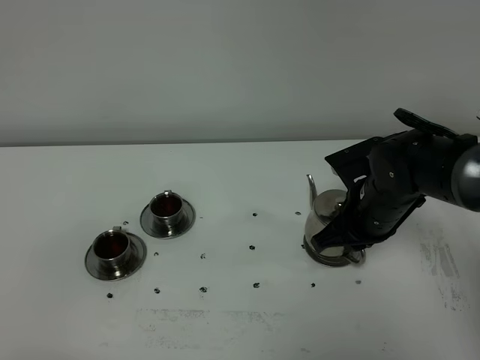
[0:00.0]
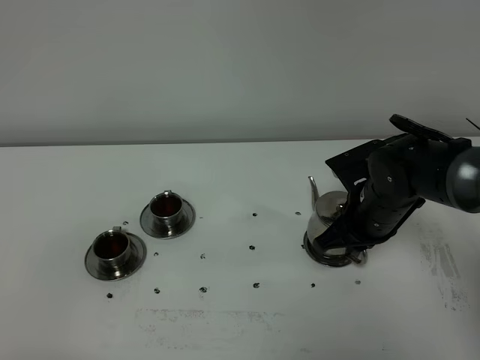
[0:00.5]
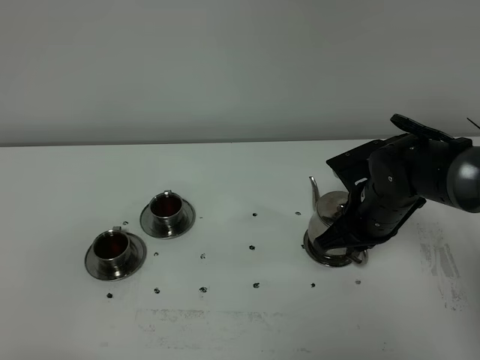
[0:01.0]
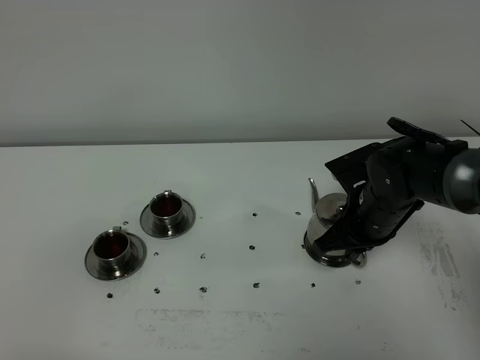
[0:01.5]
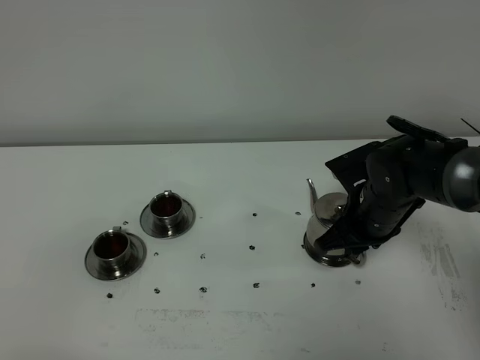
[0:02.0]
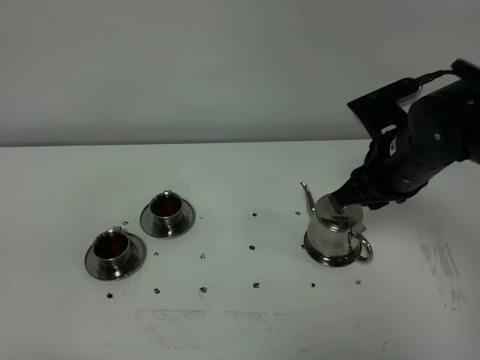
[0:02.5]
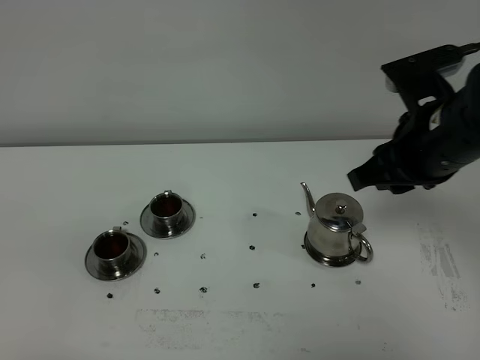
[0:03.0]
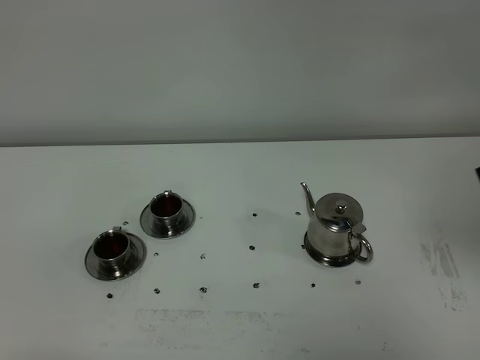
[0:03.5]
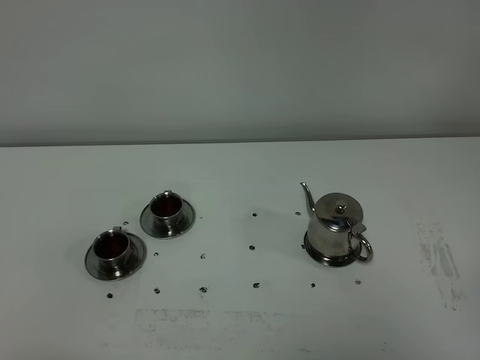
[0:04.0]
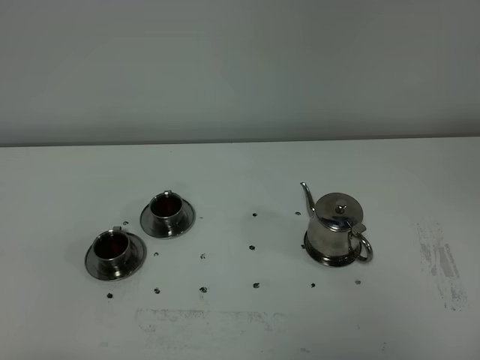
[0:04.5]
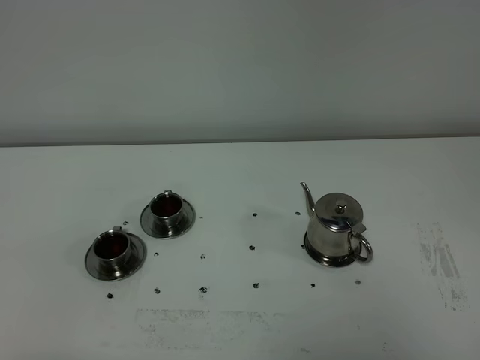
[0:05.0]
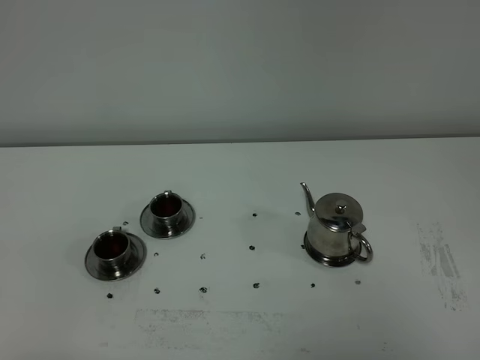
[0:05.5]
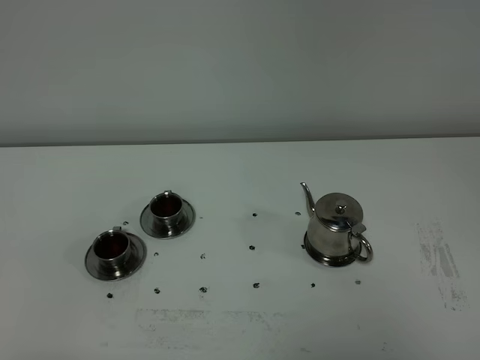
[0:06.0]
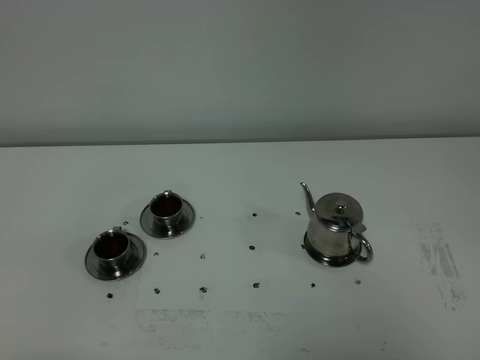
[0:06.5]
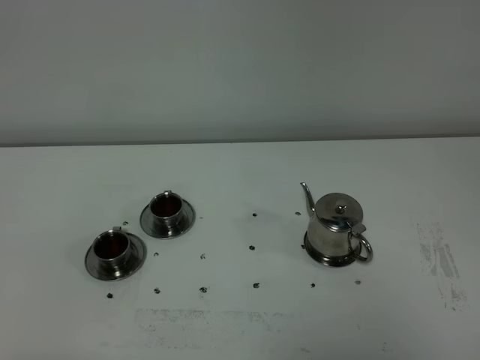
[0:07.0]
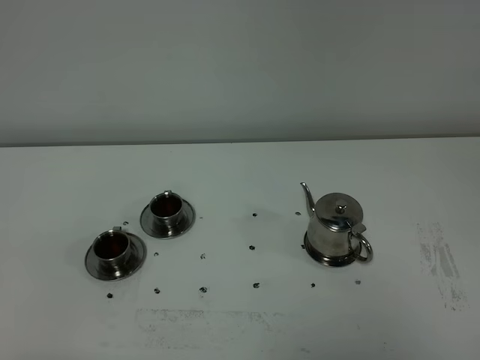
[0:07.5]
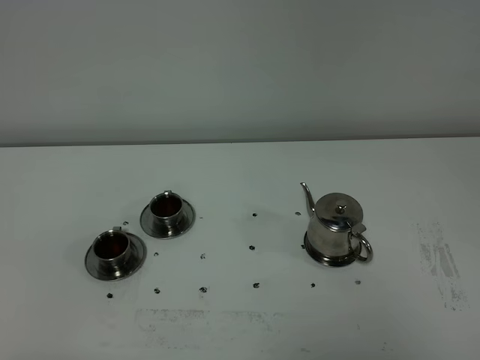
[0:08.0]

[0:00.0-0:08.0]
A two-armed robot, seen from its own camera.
Task of the whole recording: grasp the stainless steel teapot and pour the tea into the two stainless steel teacups one by one, put the stainless steel teapot back in its original place.
0:00.0 to 0:02.0: The grippers move only a little.
0:02.0 to 0:04.0: The right gripper shifts some 40 cm backward, upward and to the right.
0:06.0 to 0:08.0: Both grippers stay about where they are.
